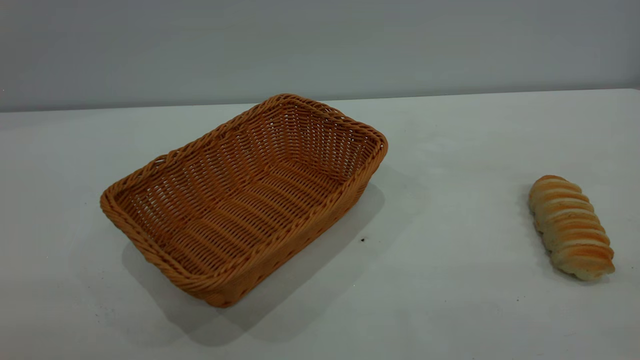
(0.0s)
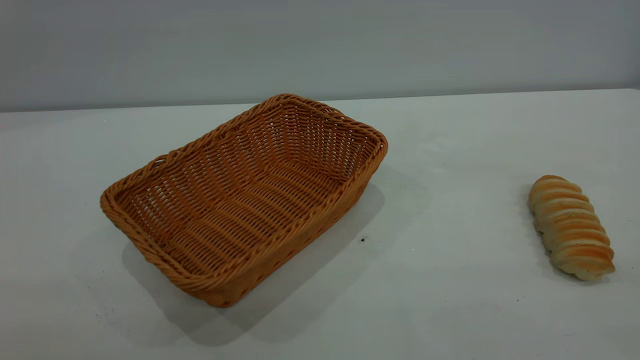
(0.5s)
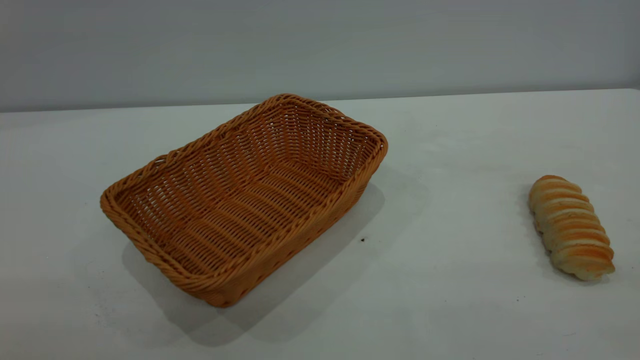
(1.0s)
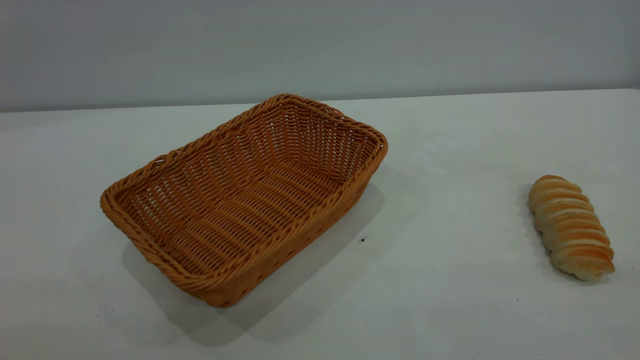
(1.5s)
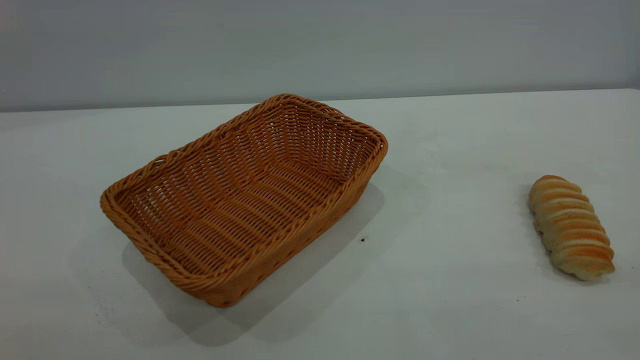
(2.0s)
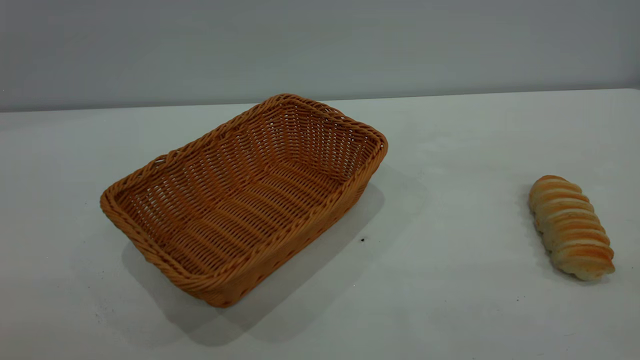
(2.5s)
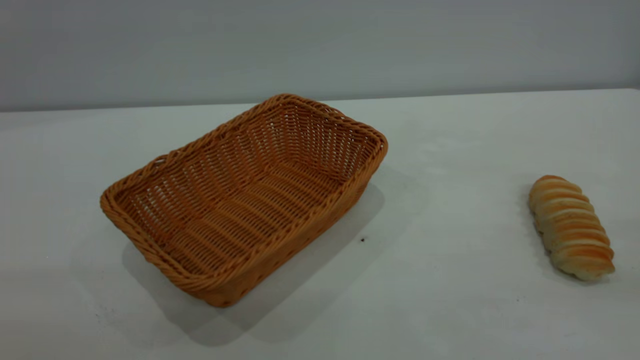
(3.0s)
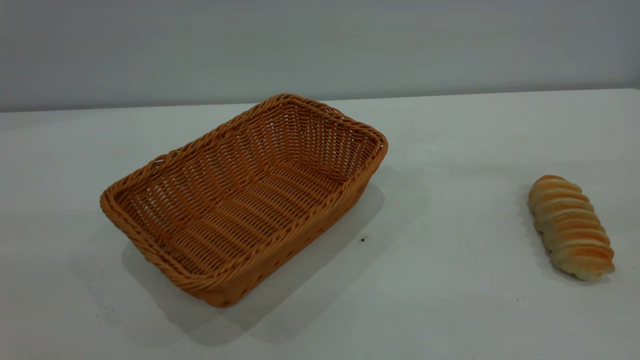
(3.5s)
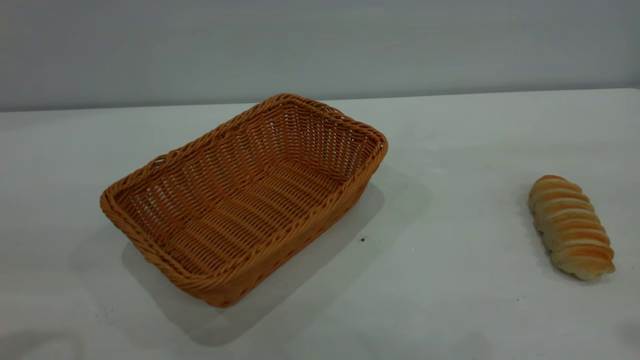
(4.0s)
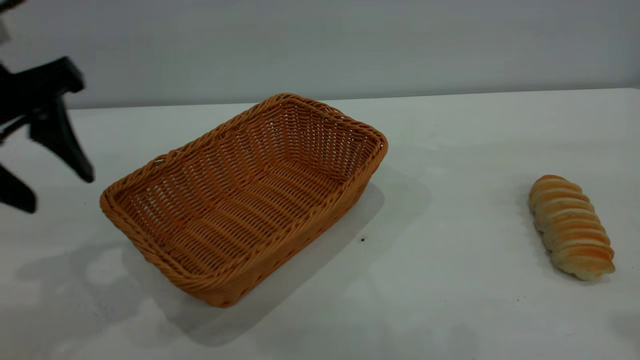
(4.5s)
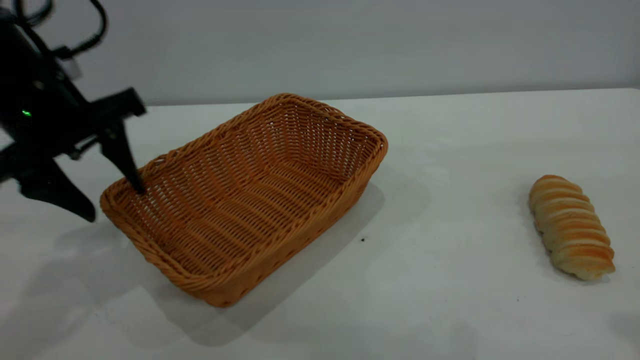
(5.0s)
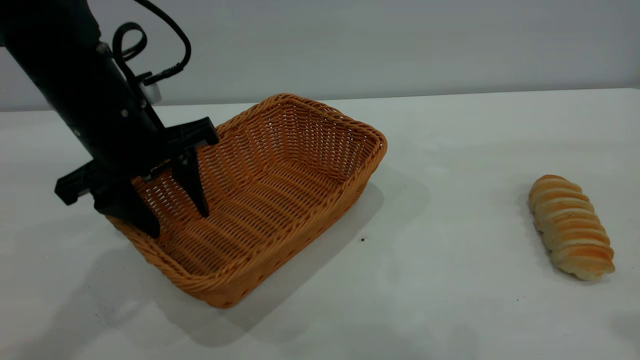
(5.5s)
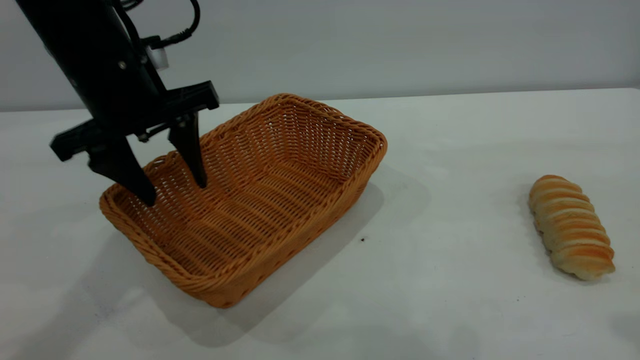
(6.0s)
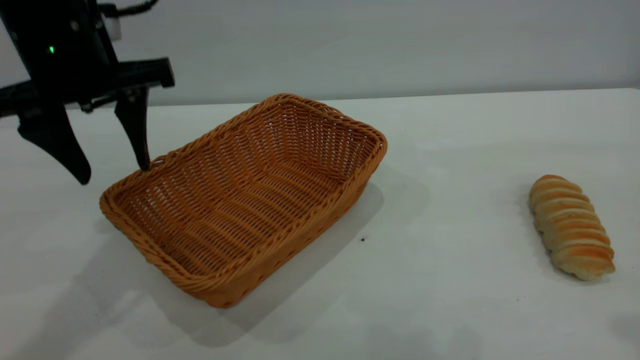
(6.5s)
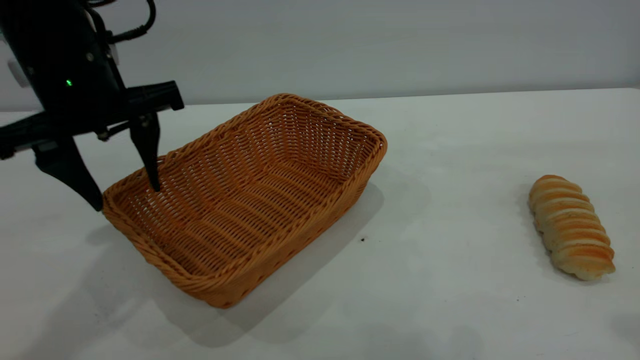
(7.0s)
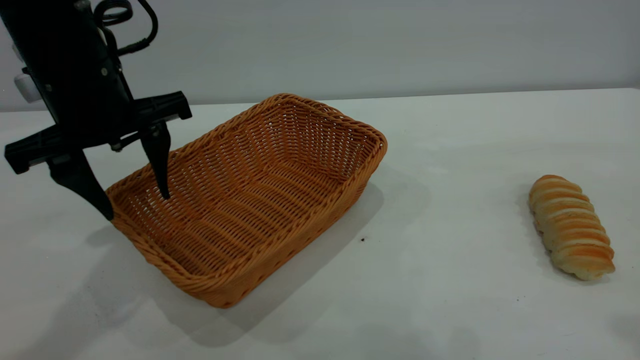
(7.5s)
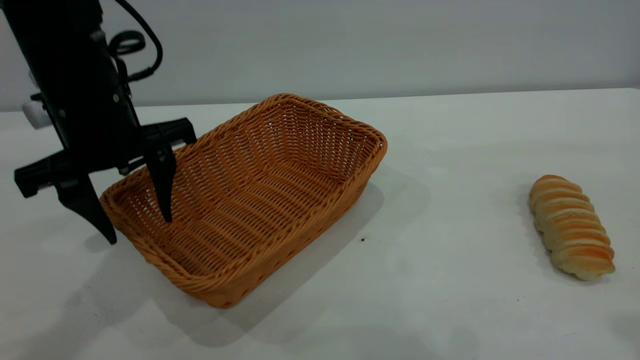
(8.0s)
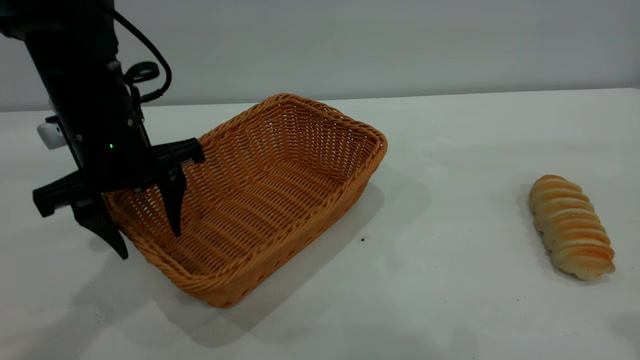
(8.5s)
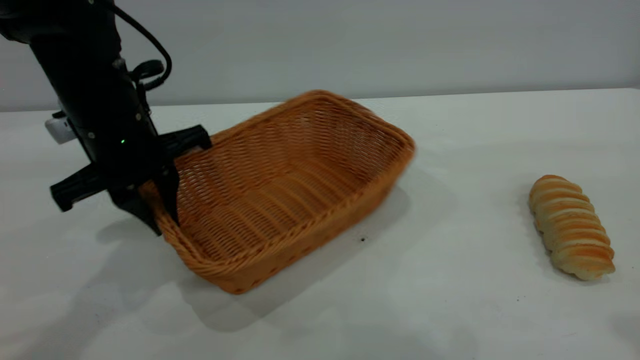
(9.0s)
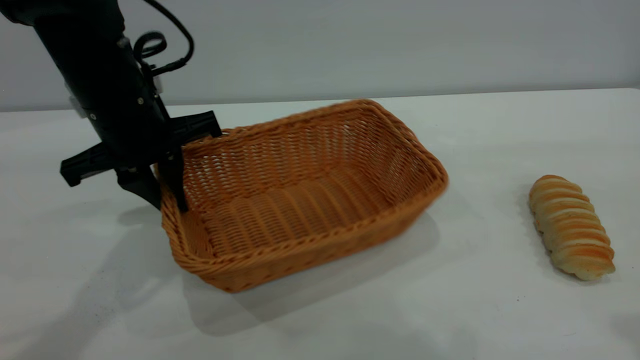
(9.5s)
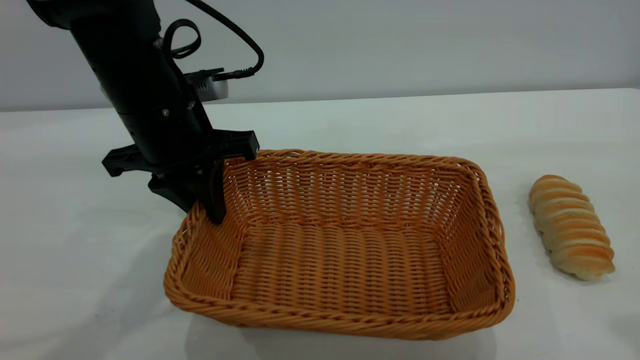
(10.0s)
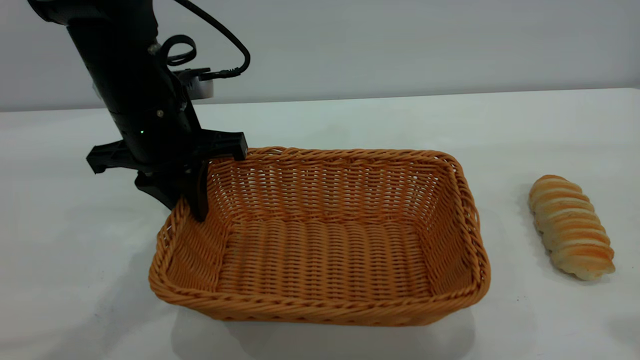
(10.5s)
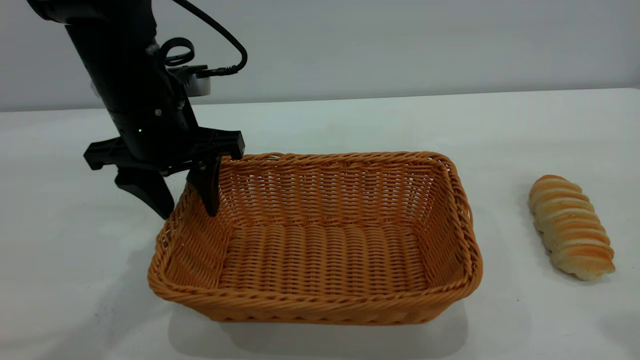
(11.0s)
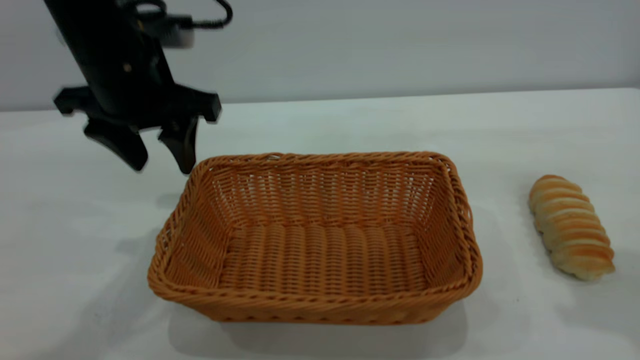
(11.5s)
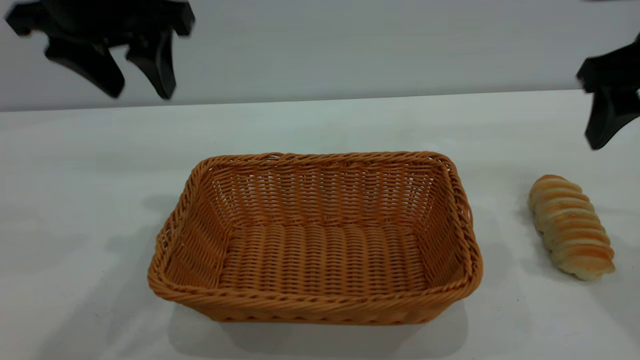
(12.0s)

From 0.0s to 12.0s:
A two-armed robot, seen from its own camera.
Task of the whole recording: One hand grasps the yellow basket and places it in the middle of the table, while the other hand picks up the long bread and puts it into the yellow basket.
Step, from 0.0s to 11.5s: Move the basket to the center of view.
From 4.0s to 6.0s: The left gripper is displaced forward, to the right and downward by about 20 cm.
From 8.0s to 10.0s: The left gripper closes up.
From 10.0s to 12.0s: The right gripper moves forward and downward, approximately 20 cm, and opens up; the left gripper is displaced upward by some 15 cm, and opens.

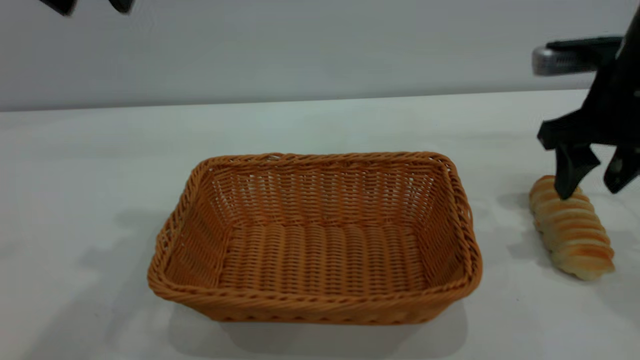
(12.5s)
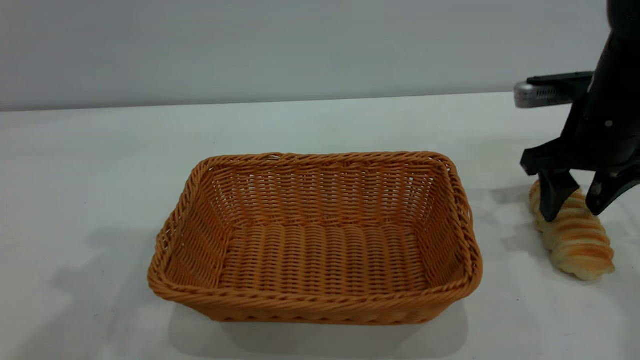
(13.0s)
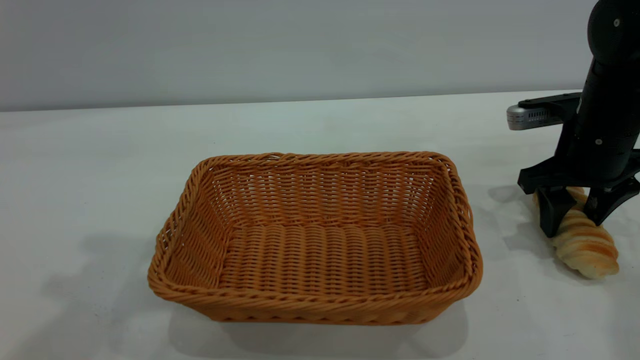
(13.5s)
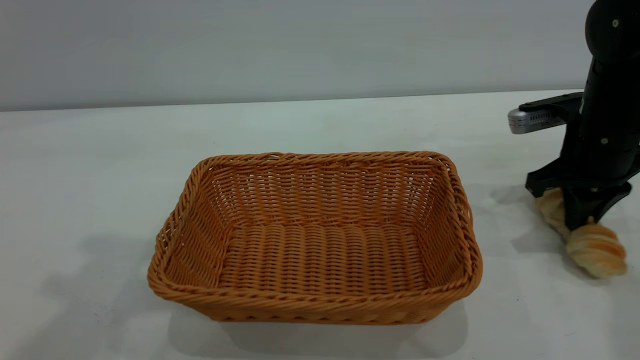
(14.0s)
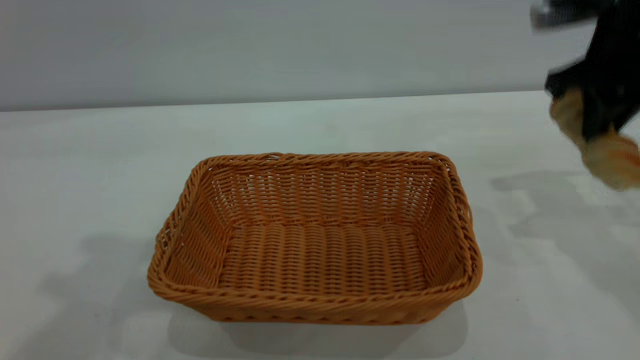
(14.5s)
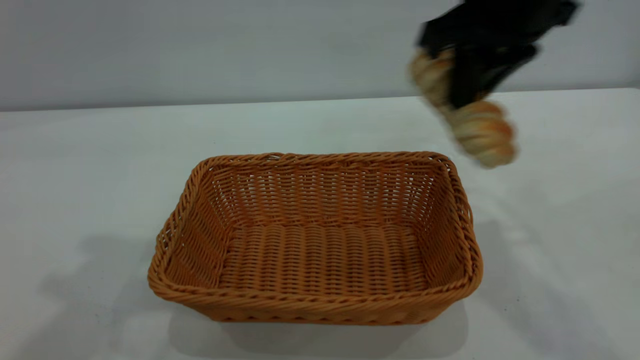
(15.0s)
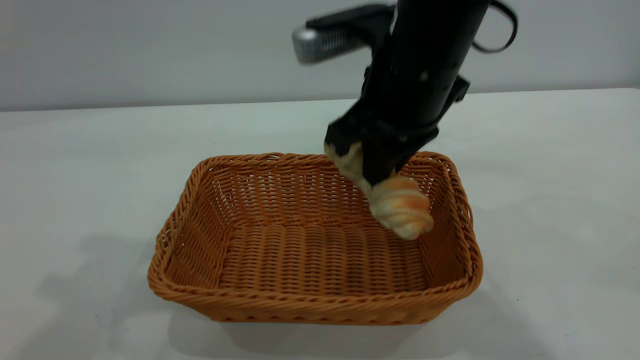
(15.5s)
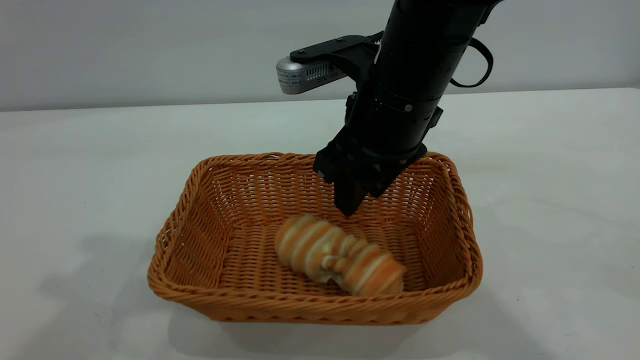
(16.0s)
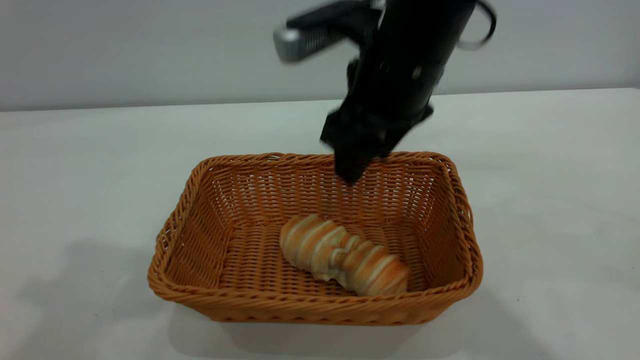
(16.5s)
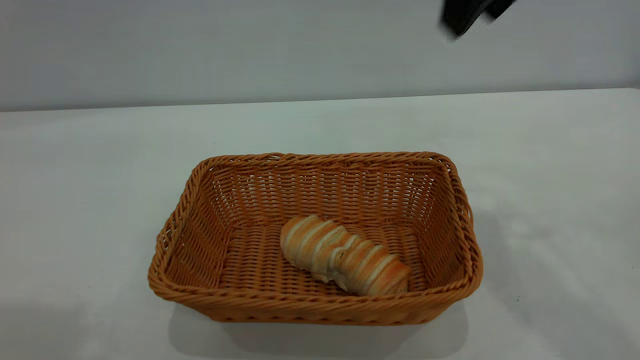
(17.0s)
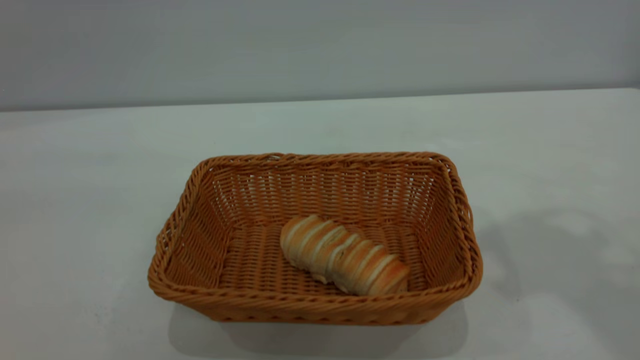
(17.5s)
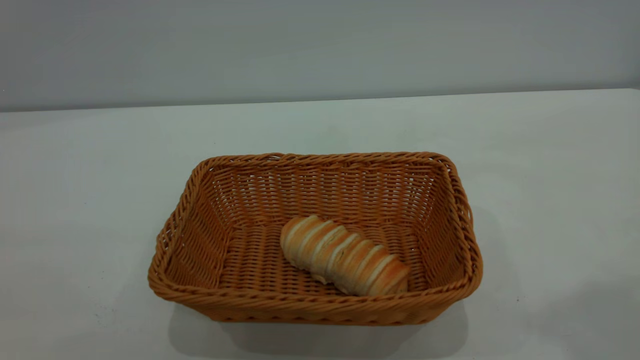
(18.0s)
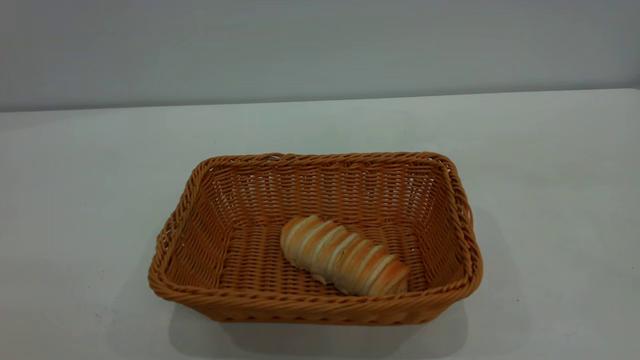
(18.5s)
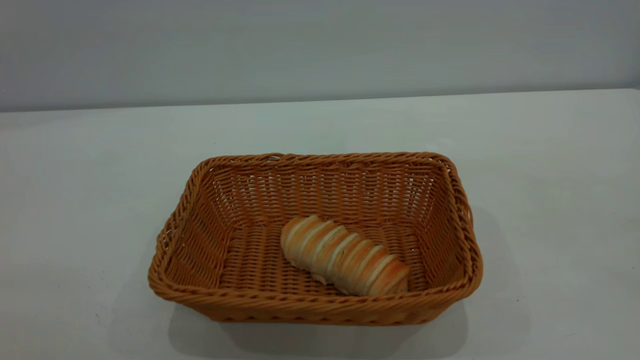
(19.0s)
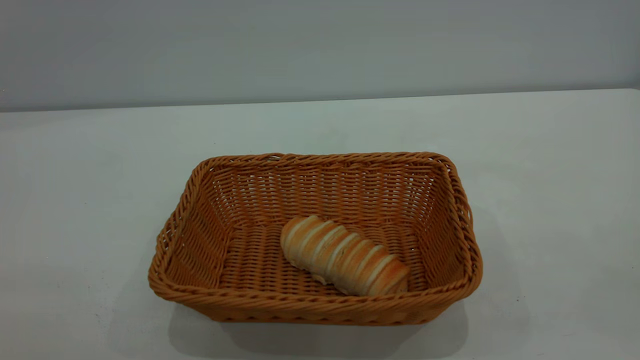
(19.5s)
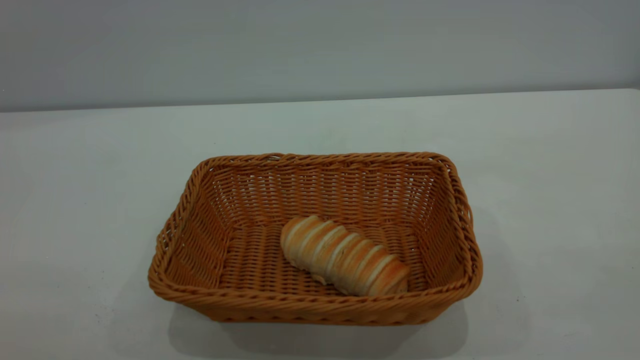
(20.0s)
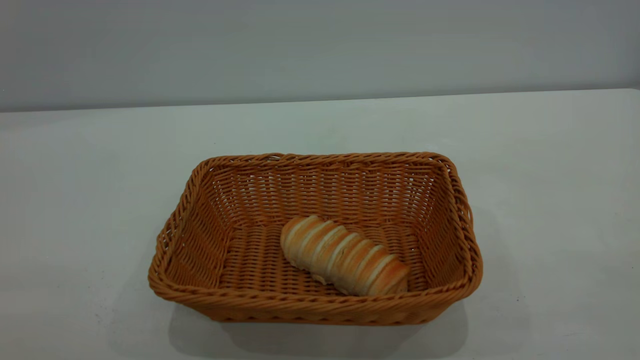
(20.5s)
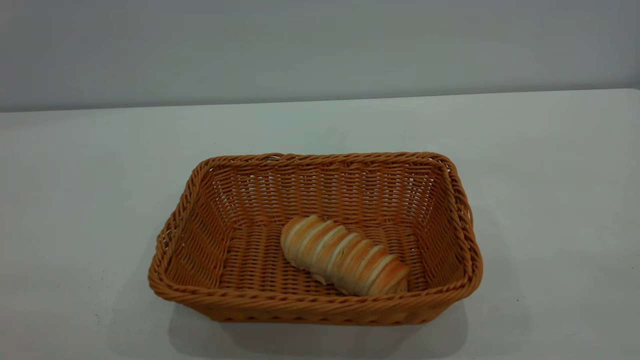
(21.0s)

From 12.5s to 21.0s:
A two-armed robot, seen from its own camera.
Task of the whole recording: One hand grasps the yellow basket and places it in the middle of the table, while the other hand picks up the long bread and puts it into the yellow basket.
Step, from 14.5s to 16.5s: place the bread into the basket.
From 12.5s to 14.5s: The right gripper goes roughly 5 cm upward, and closes.
From 14.5s to 16.5s: The right gripper shifts about 20 cm to the left, and opens.
From 16.5s to 19.0s: The left gripper heads backward, covering some 25 cm; the right gripper is displaced backward, upward and to the right by roughly 50 cm.
